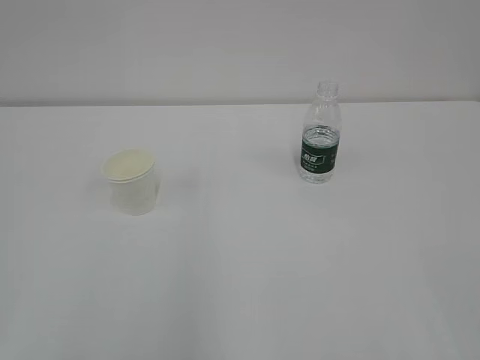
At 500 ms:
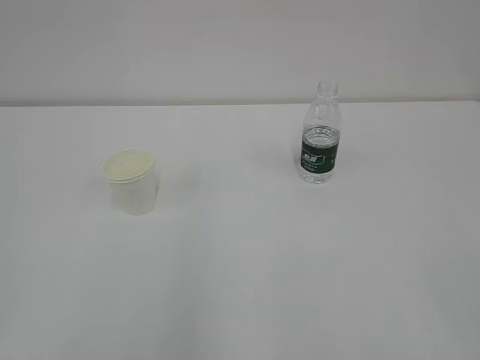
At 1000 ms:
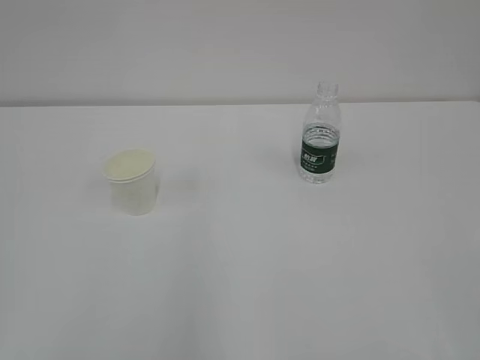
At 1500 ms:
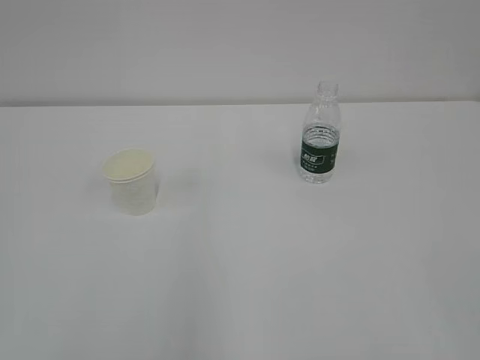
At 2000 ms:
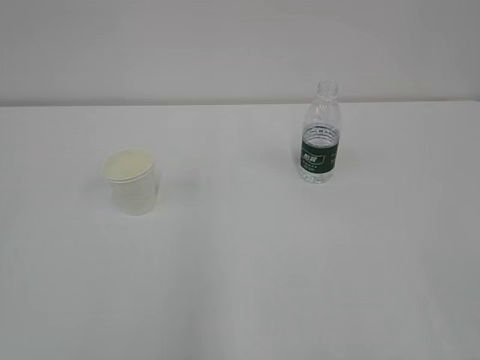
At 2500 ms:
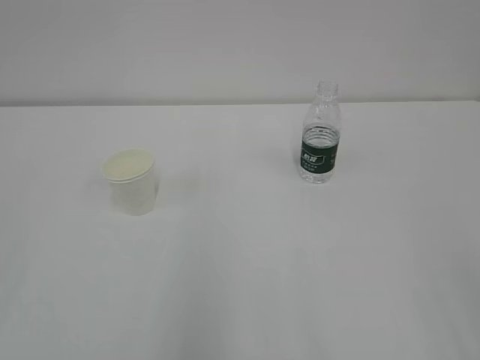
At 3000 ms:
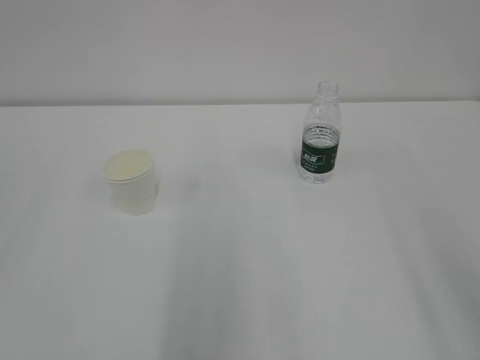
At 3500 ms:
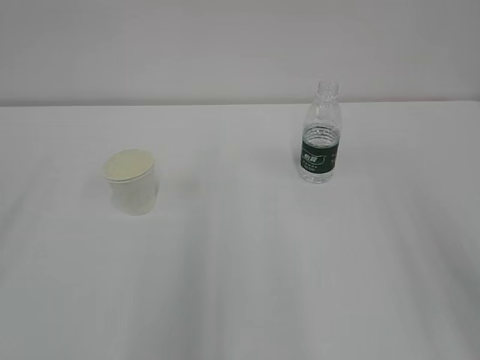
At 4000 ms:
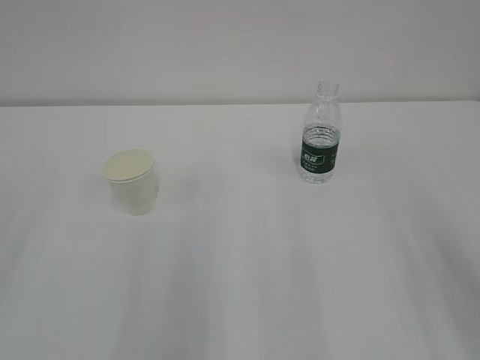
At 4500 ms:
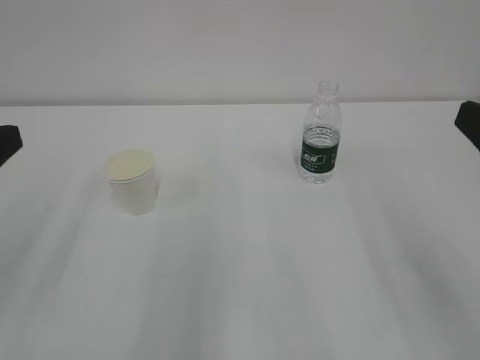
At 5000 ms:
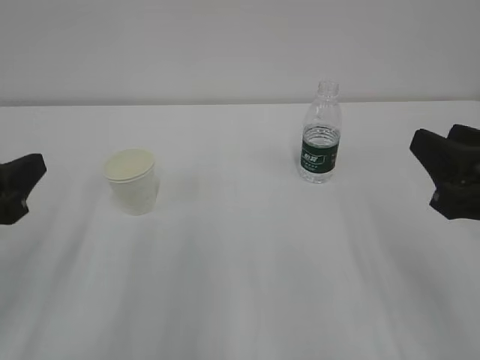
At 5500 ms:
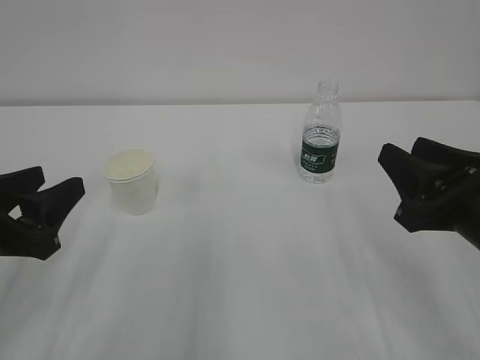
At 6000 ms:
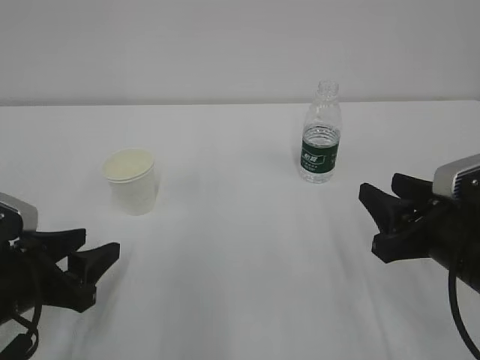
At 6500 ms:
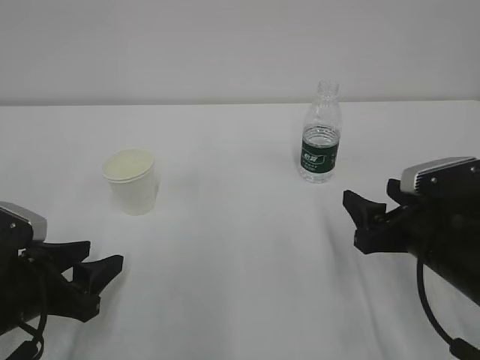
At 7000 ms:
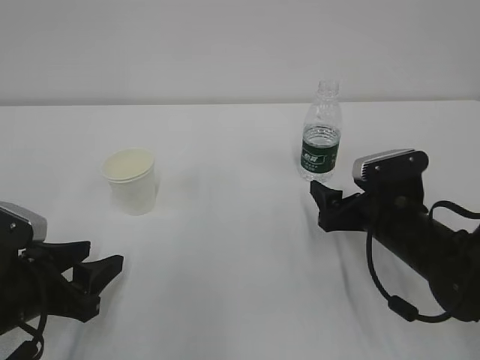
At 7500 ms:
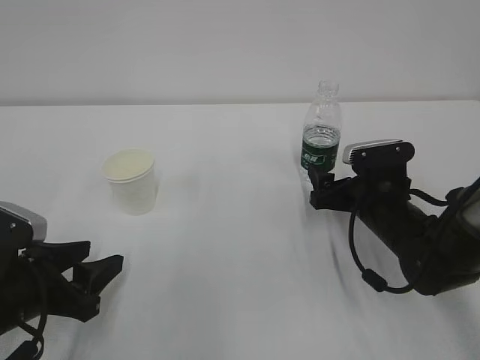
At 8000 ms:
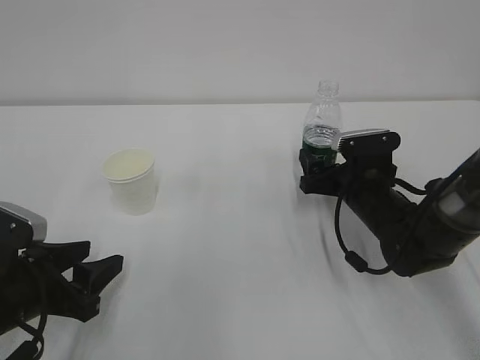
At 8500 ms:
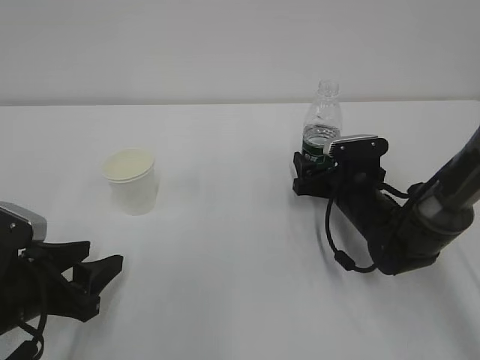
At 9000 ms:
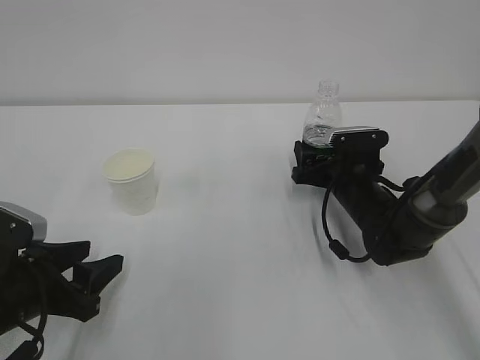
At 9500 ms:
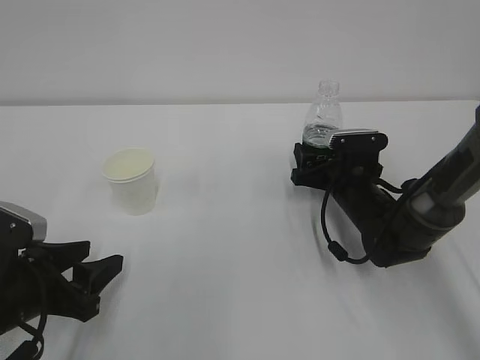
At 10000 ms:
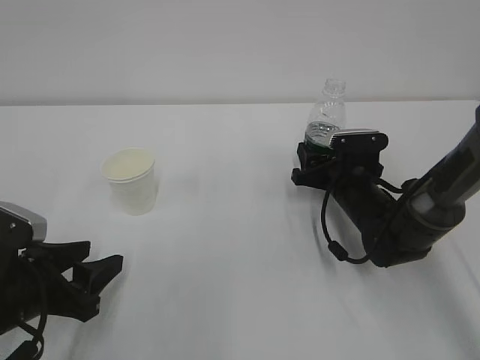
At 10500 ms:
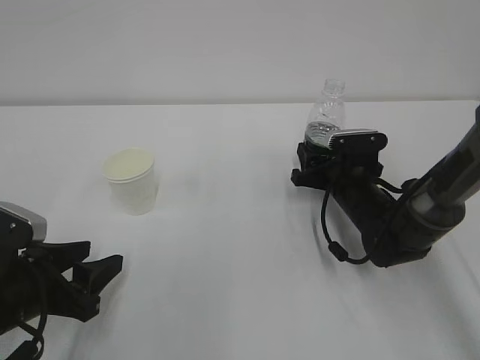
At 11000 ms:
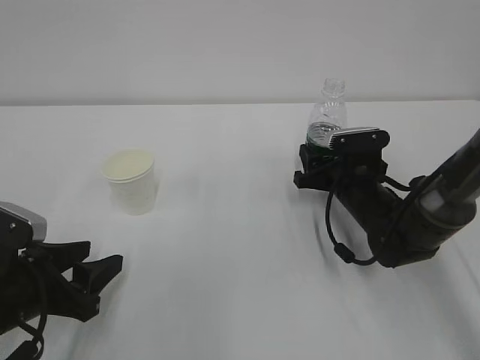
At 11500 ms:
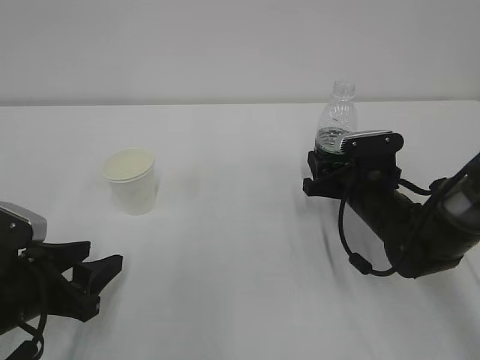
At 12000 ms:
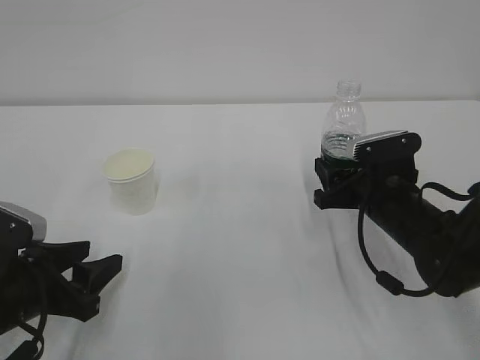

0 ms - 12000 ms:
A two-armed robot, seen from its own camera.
4000 ms - 6000 ms: The left gripper shifts approximately 20 cm downward, to the right and forward. The right gripper shifts some 15 cm downward and forward.
6000 ms - 8000 ms: The right gripper goes some 20 cm forward and downward, and opens.
8000 ms - 10000 ms: The right gripper closes.
10000 ms - 12000 ms: The right gripper travels backward by roughly 5 cm.

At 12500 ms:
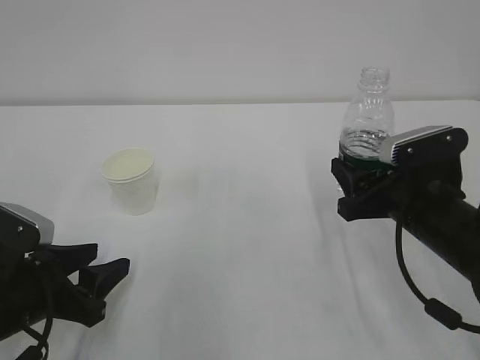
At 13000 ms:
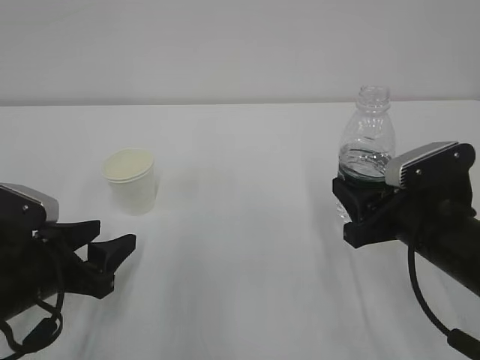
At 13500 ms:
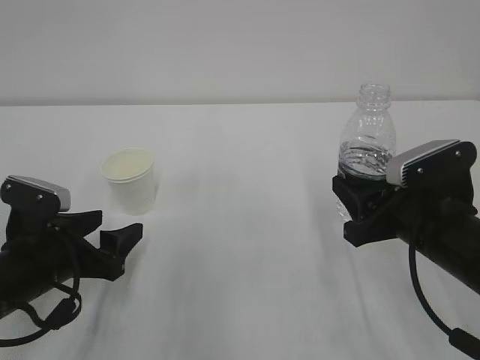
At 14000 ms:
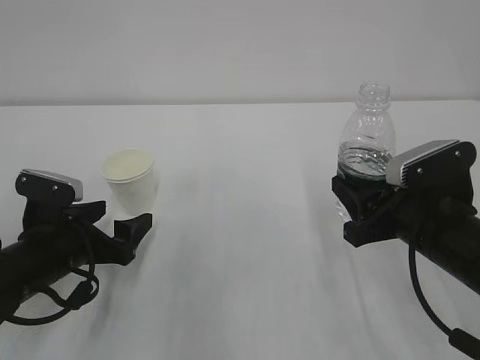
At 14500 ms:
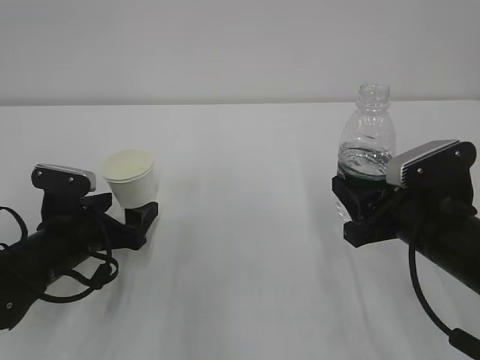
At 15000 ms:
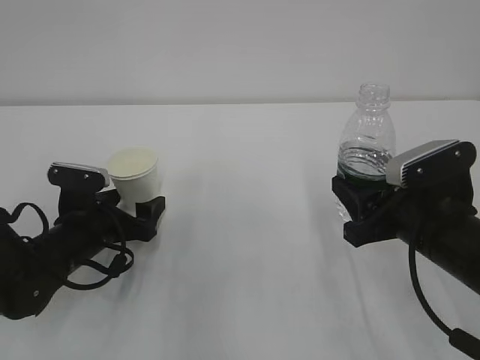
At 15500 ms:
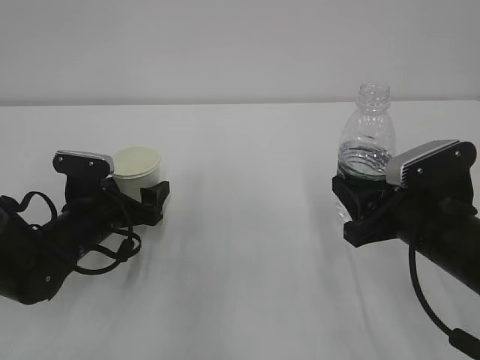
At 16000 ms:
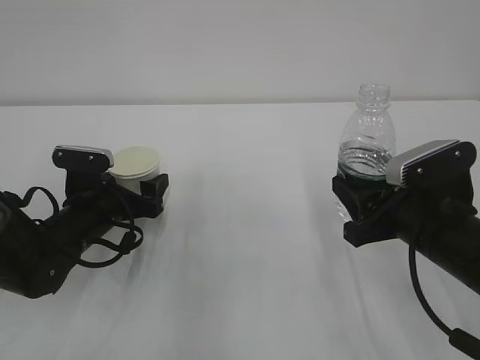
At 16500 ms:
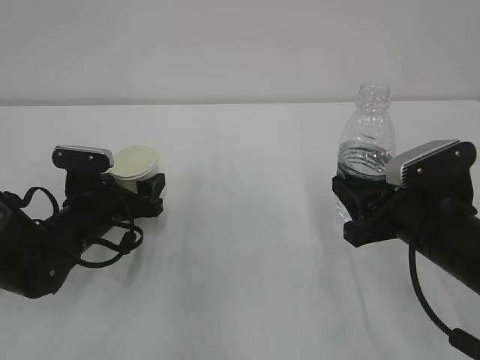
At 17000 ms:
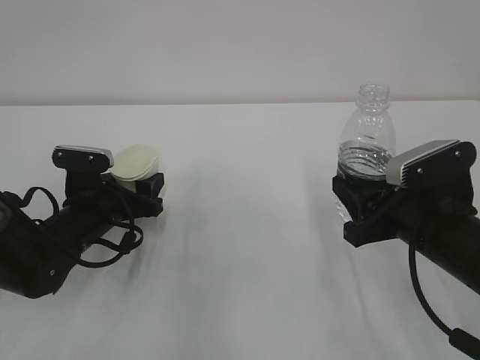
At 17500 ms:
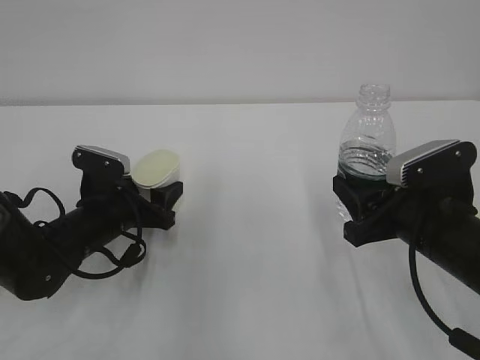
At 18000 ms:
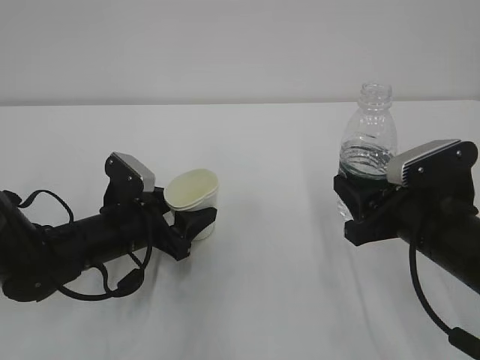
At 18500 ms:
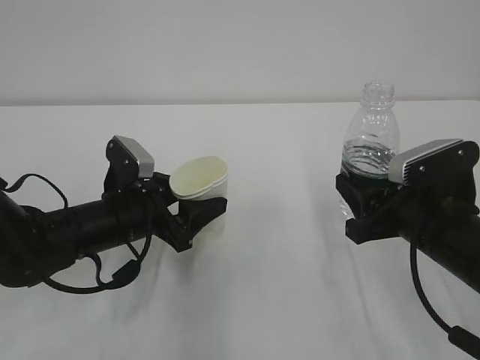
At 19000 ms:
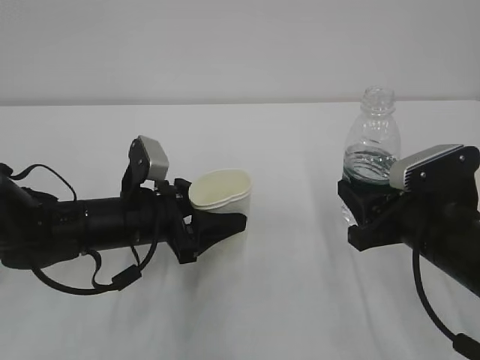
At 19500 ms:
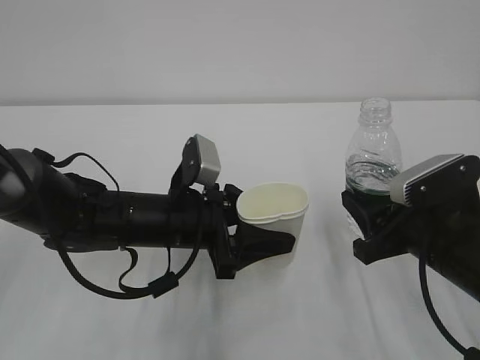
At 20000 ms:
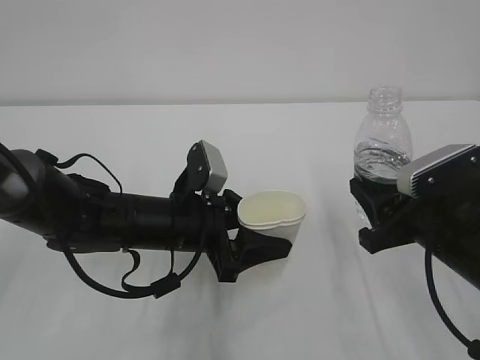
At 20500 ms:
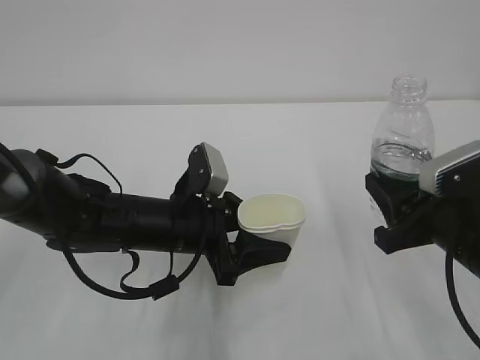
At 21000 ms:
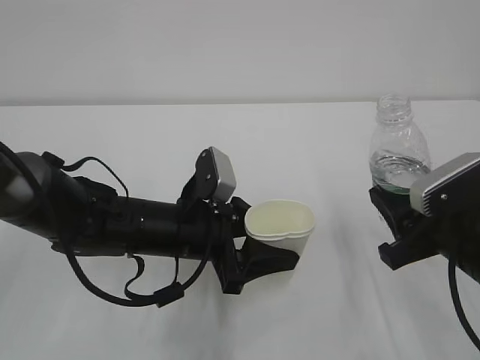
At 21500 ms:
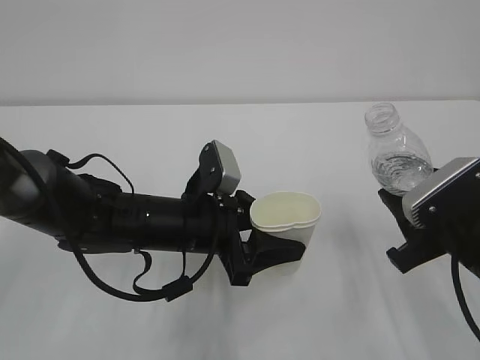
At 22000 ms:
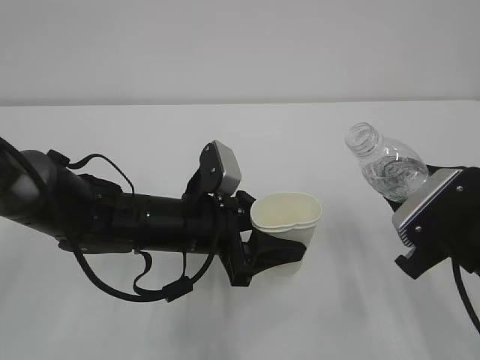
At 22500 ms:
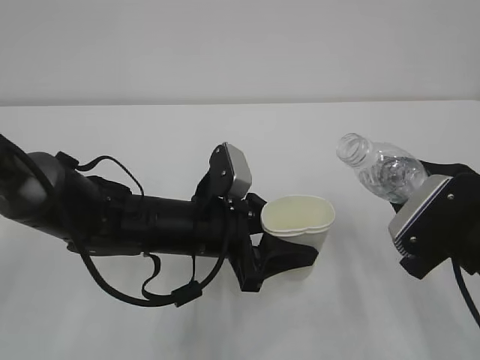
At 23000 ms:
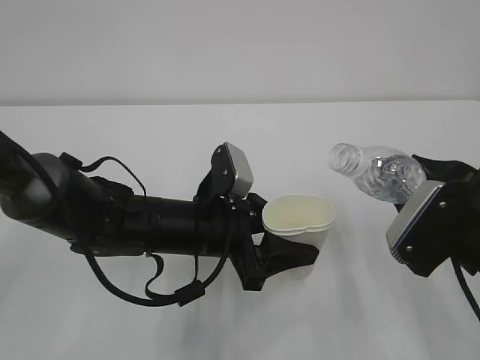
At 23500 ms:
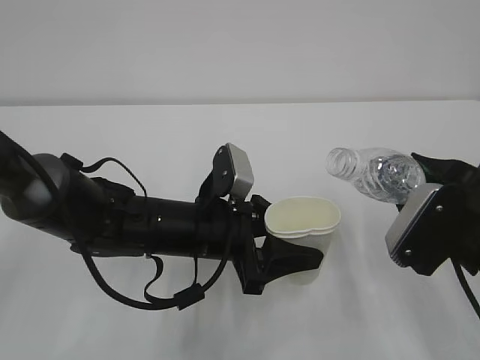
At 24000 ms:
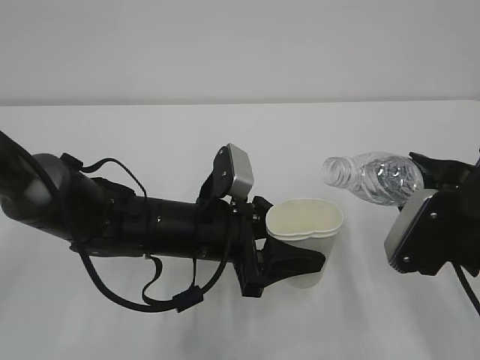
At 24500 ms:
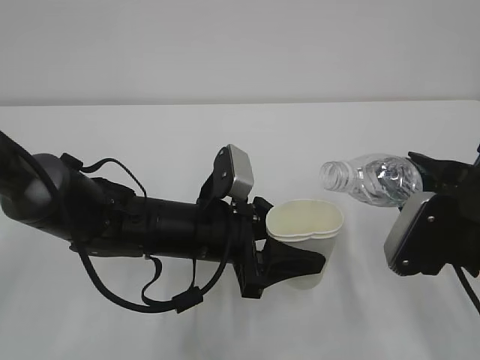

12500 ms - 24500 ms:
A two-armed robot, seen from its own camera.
12500 ms - 14500 ms: The left gripper is displaced forward by approximately 10 cm, and opens up.
14500 ms - 16500 ms: The left gripper closes up.
16500 ms - 18500 ms: The left gripper changes place by approximately 5 cm.
18500 ms - 20500 ms: The left gripper travels to the right by some 5 cm.
22500 ms - 24500 ms: The grippers move only a little.

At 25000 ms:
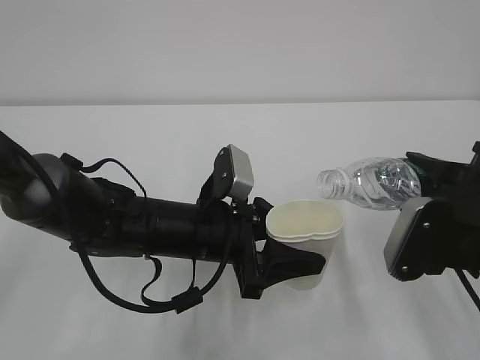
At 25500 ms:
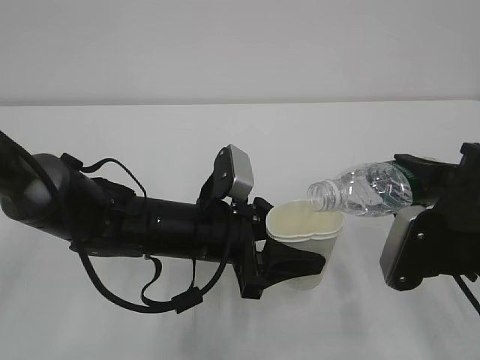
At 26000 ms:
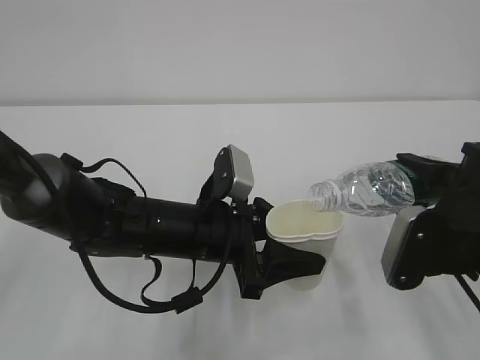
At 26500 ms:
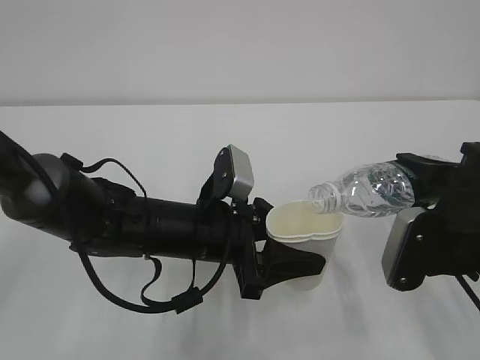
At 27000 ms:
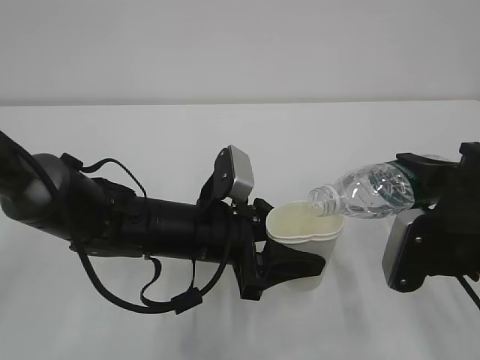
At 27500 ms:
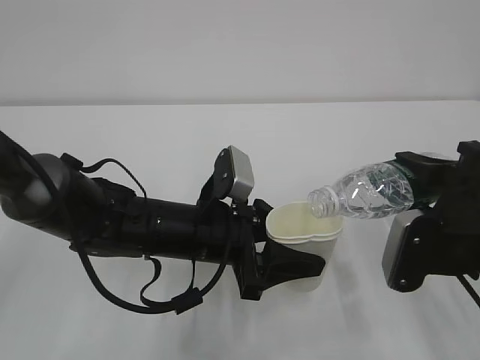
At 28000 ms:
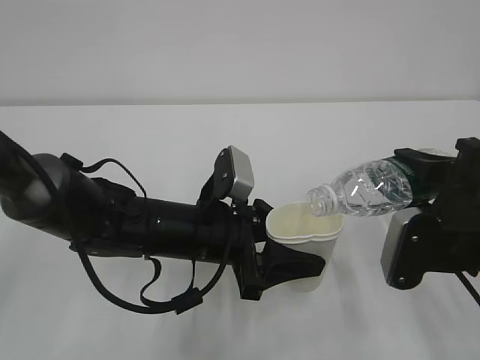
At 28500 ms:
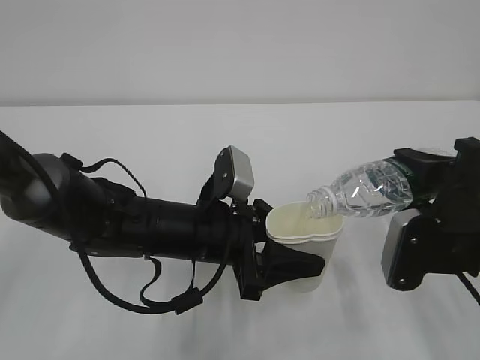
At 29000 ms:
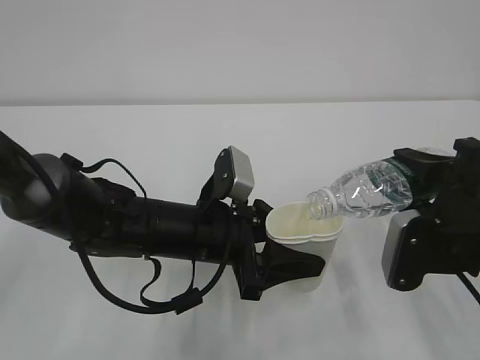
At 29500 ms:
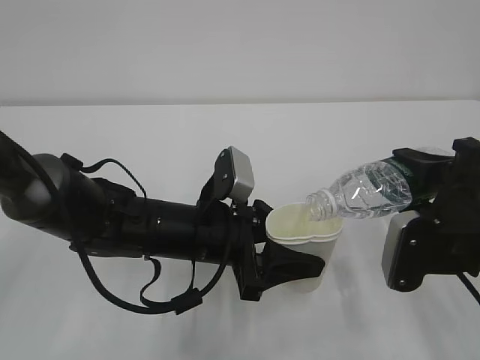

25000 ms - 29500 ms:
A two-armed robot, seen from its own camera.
25000 ms - 29500 ms: The grippers make only small movements.
